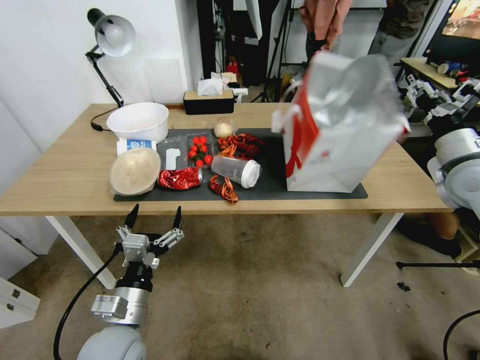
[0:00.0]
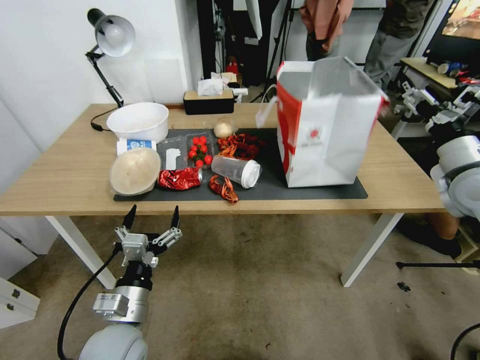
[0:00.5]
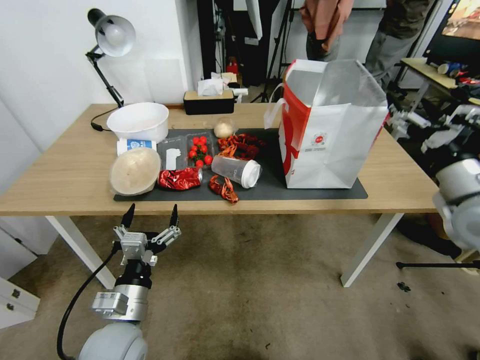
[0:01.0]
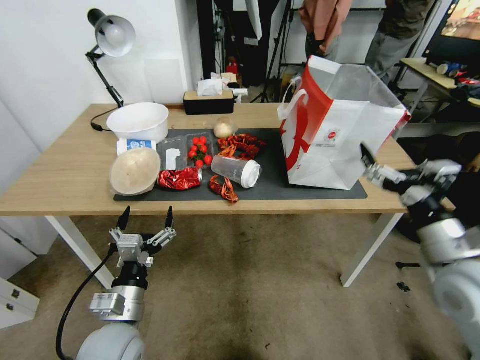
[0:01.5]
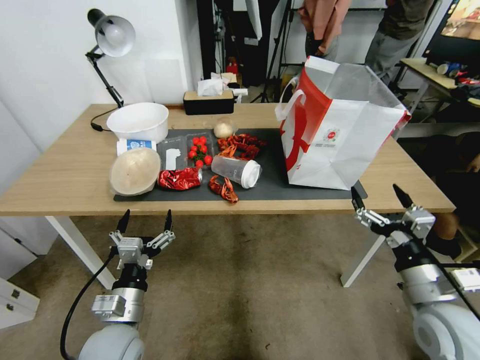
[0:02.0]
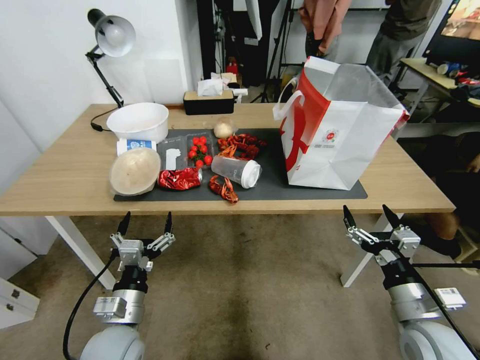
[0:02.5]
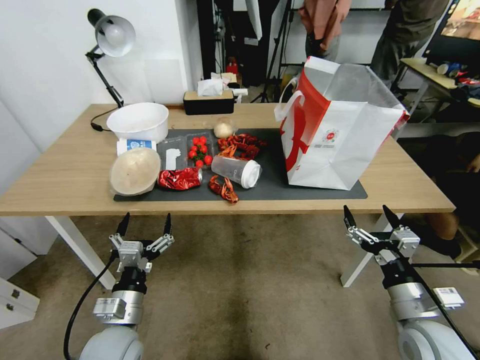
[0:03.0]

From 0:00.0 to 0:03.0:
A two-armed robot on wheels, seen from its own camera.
Task of the whole recording: Pick up the food delivery bag from the floor and place it on the table.
From 0:00.0 to 0:01.5: The right gripper shifts some 20 cm backward, to the left and downward, and opens its fingers.
From 0:01.5 to 0:03.0: The right gripper moves downward, about 15 cm.

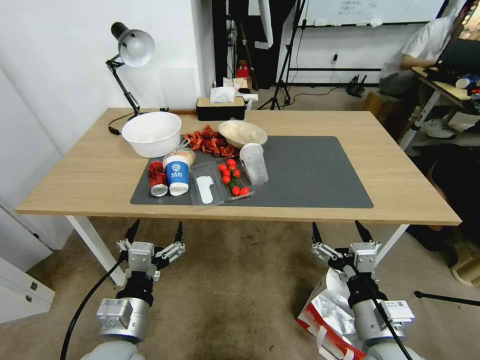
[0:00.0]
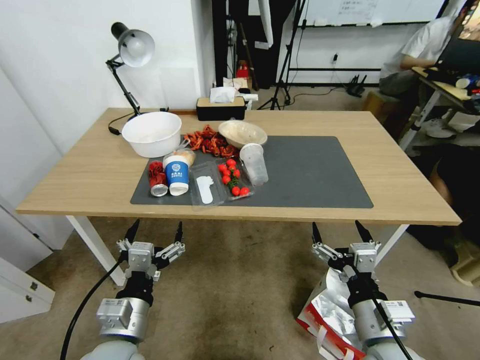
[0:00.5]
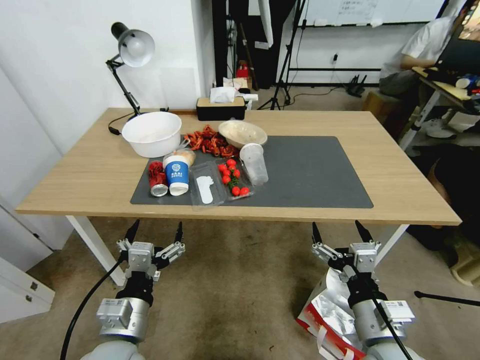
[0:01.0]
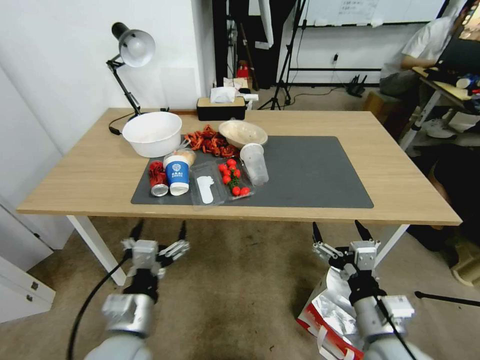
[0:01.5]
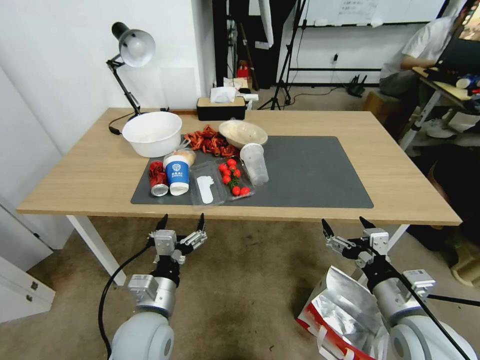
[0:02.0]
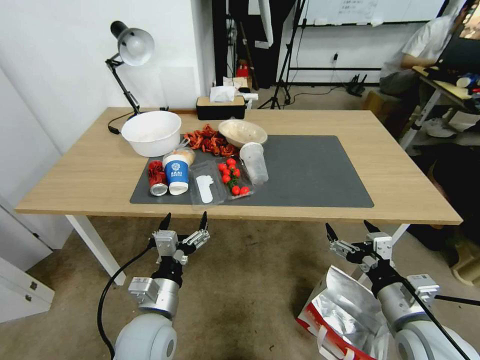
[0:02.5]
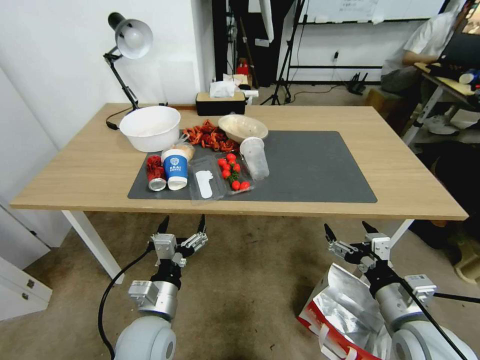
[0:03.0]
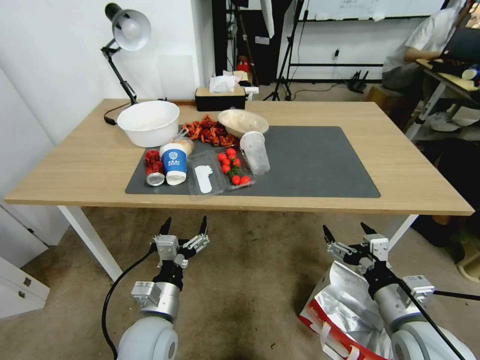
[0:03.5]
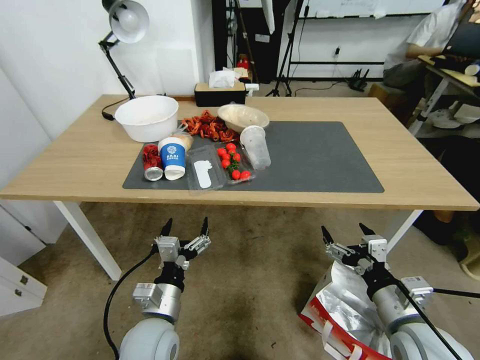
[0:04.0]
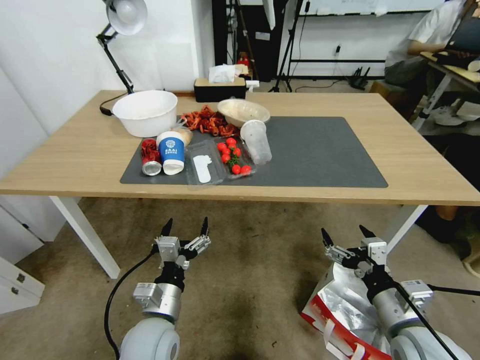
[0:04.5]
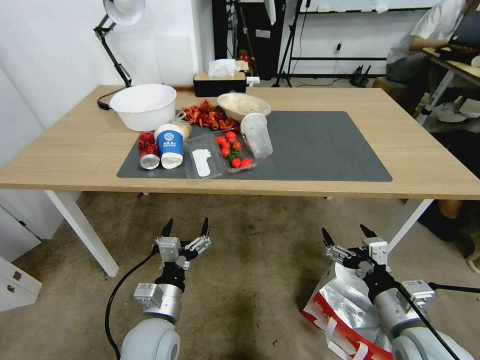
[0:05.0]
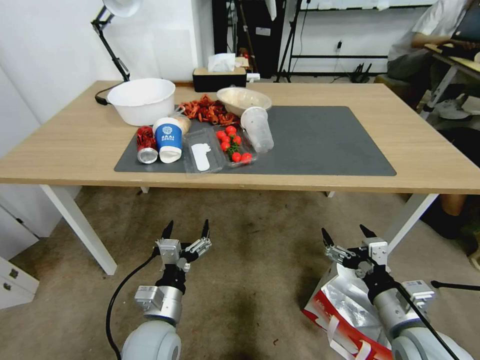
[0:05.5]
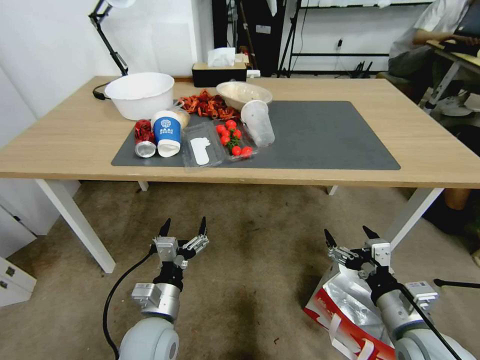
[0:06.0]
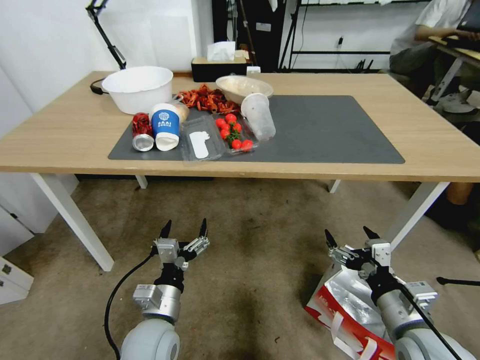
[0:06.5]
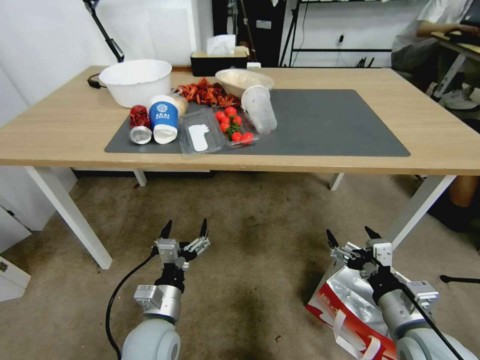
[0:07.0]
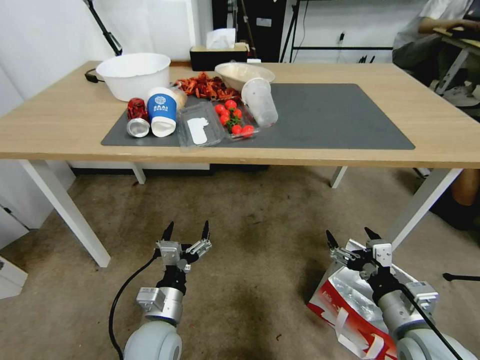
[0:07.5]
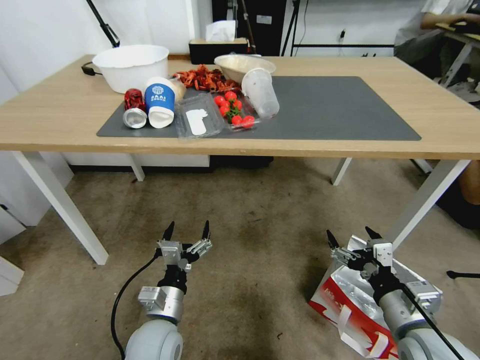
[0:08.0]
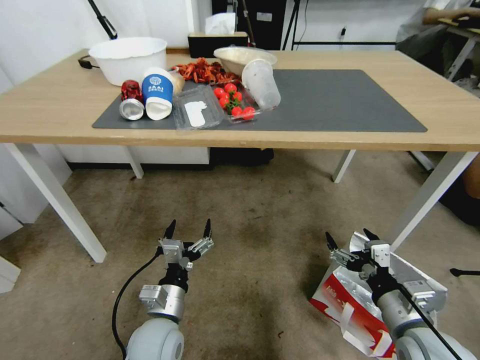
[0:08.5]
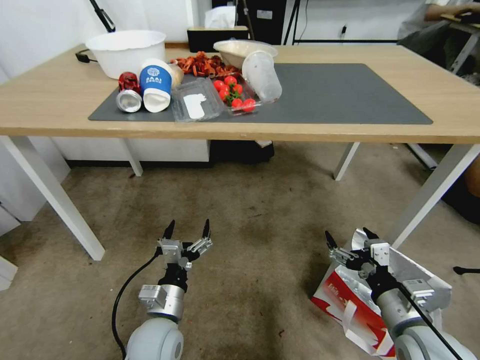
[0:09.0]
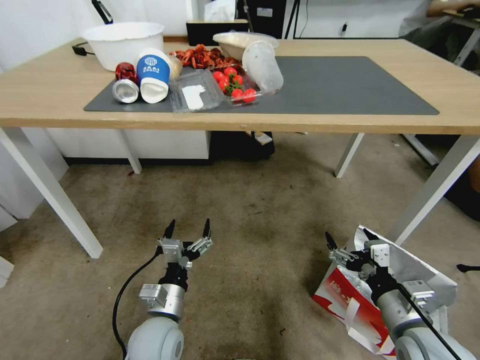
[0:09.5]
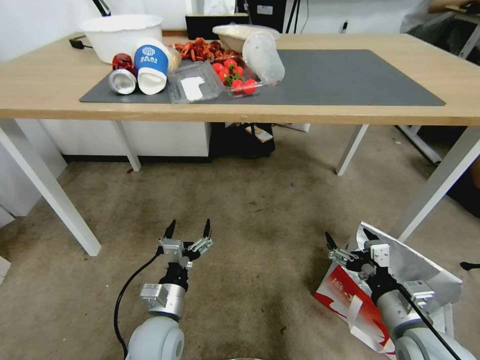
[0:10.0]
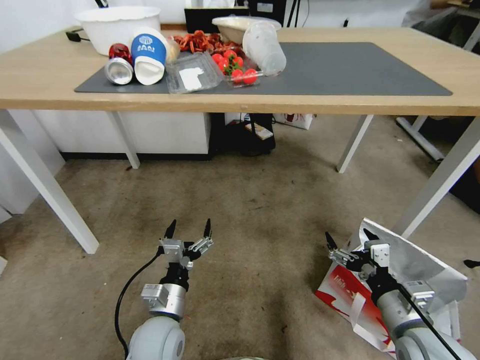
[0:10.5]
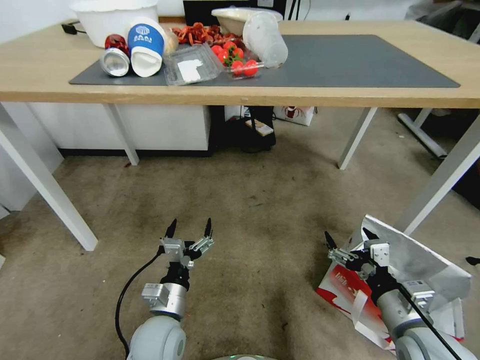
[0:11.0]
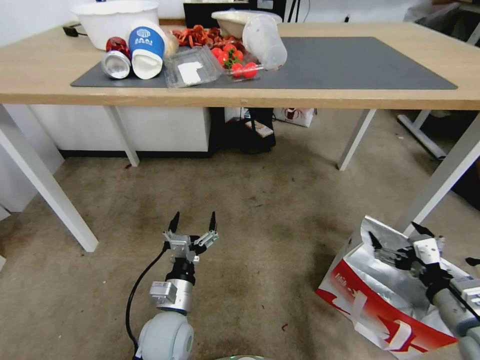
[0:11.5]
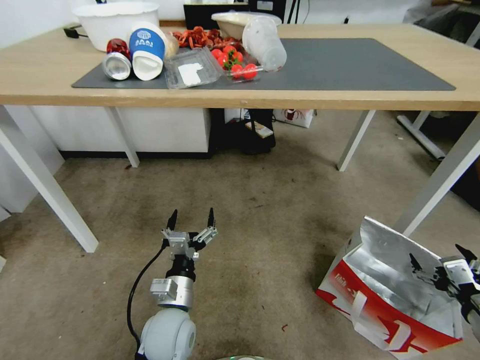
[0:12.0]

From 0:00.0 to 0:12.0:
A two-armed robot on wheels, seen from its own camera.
Task of the whole recording: Pick up the food delivery bag from the floor and place it on the table.
From 0:10.0 to 0:12.0: The right gripper is displaced to the right by some 15 cm.

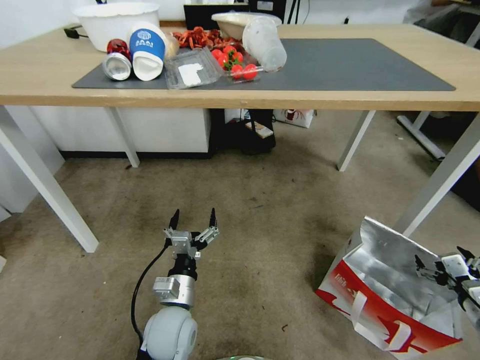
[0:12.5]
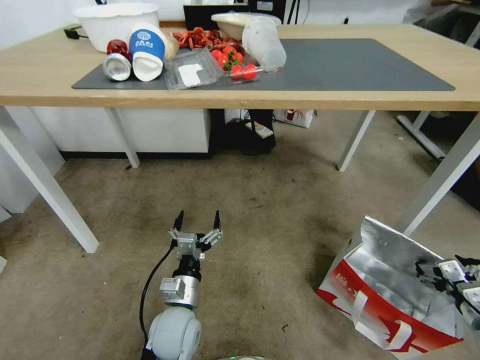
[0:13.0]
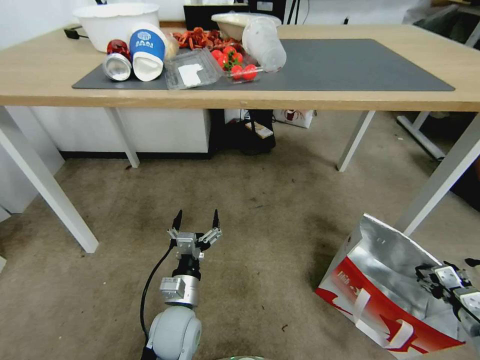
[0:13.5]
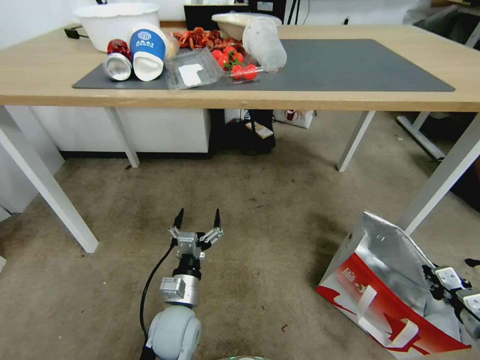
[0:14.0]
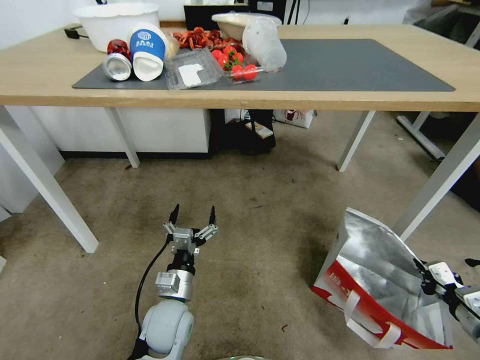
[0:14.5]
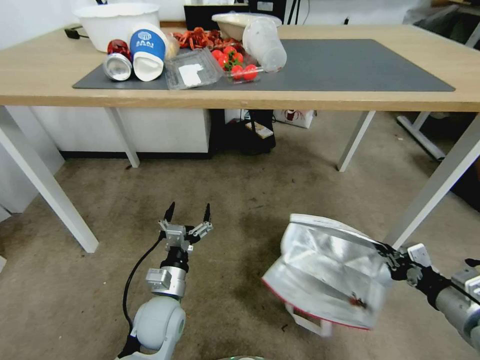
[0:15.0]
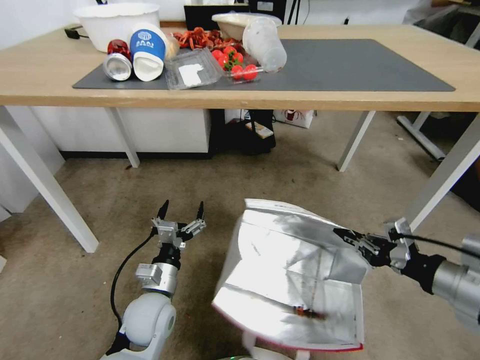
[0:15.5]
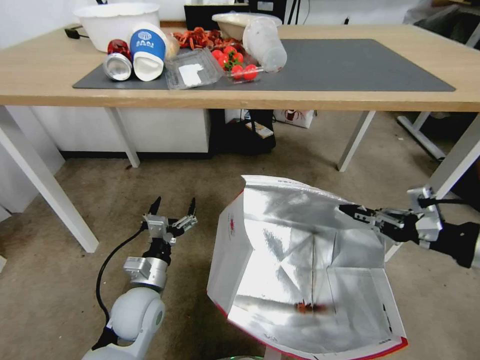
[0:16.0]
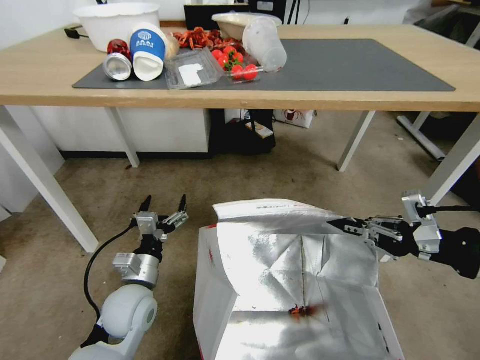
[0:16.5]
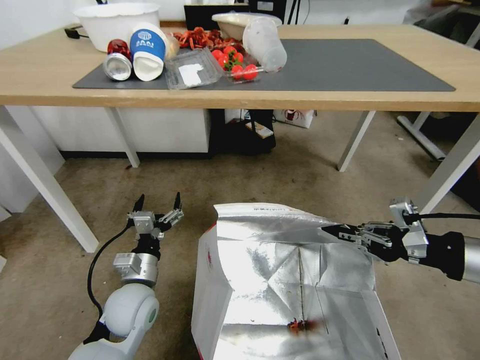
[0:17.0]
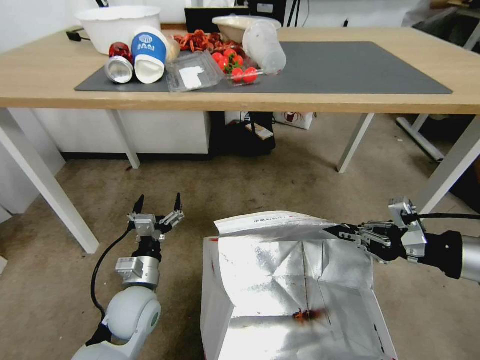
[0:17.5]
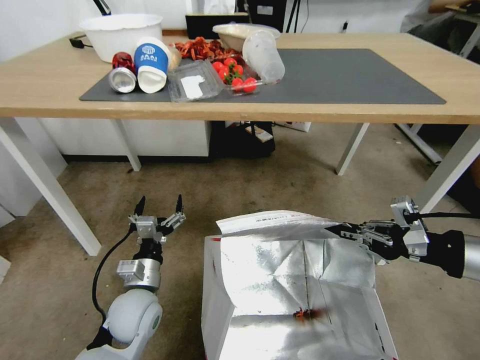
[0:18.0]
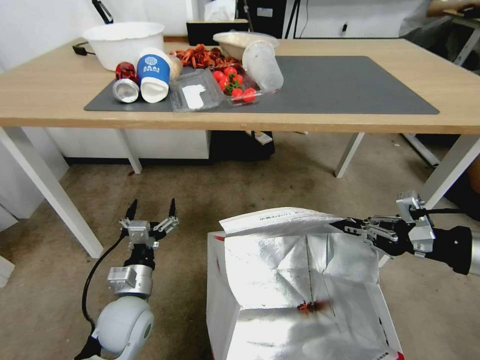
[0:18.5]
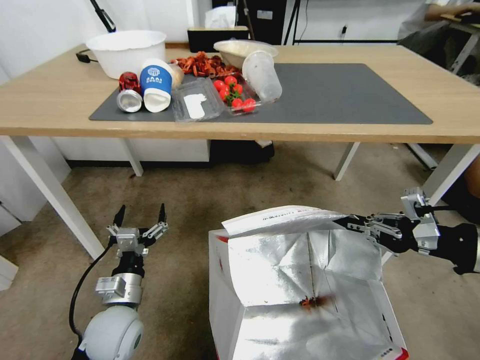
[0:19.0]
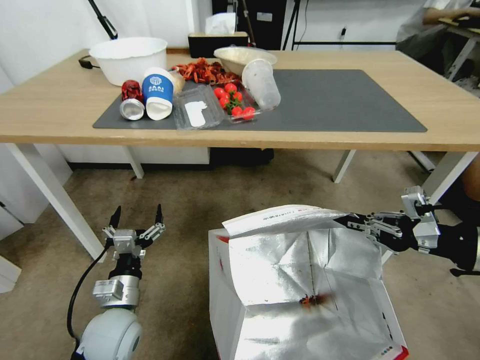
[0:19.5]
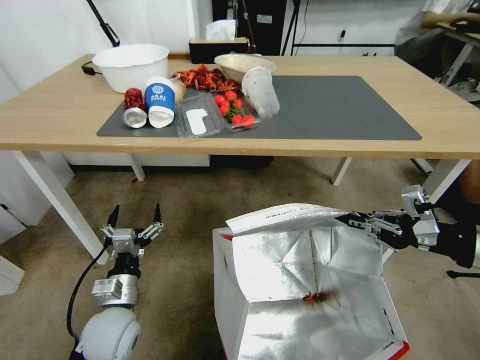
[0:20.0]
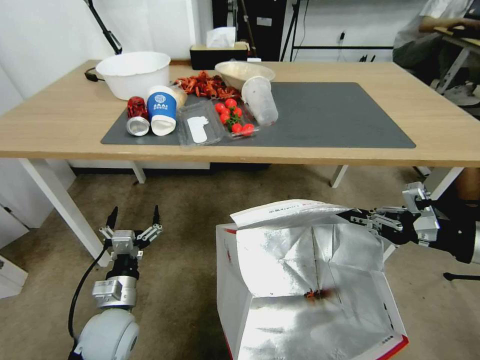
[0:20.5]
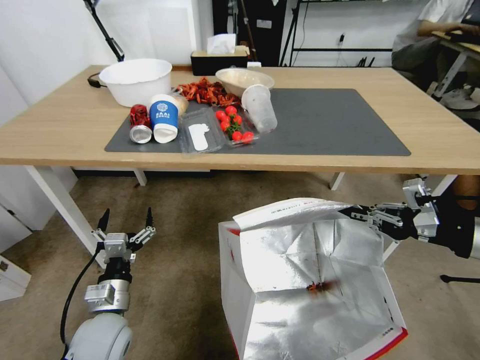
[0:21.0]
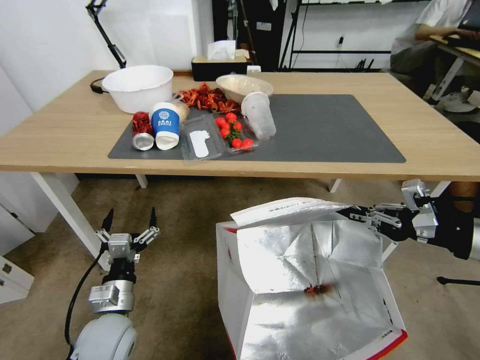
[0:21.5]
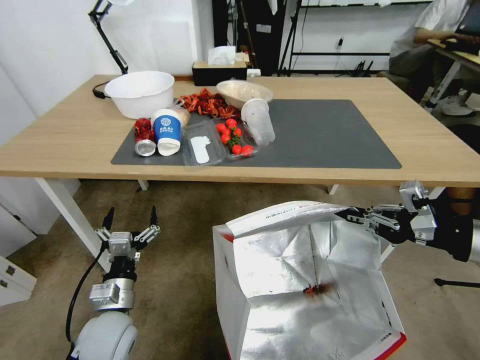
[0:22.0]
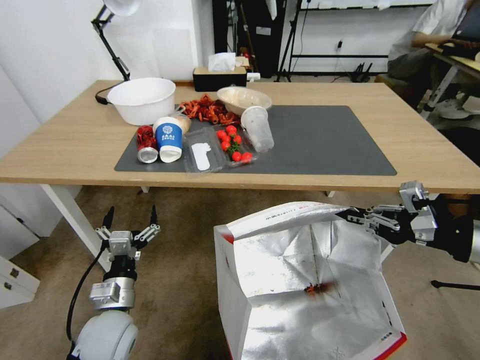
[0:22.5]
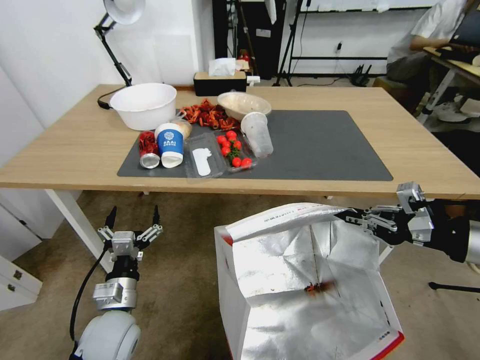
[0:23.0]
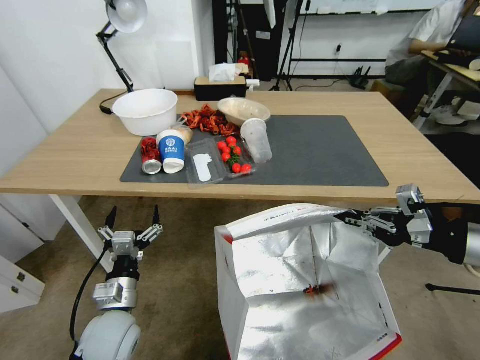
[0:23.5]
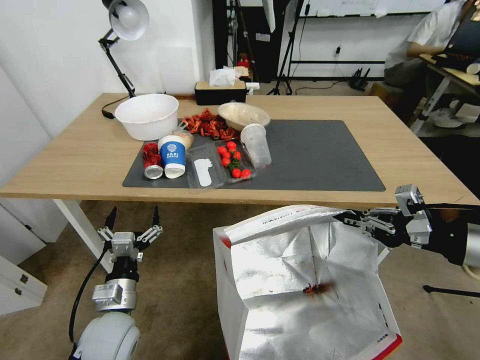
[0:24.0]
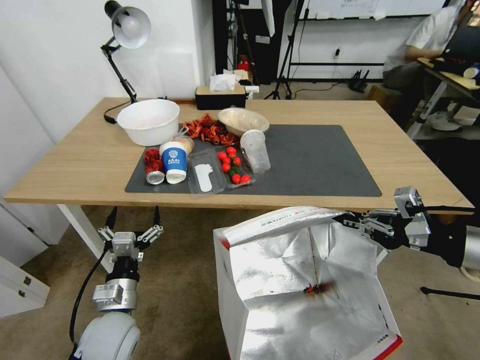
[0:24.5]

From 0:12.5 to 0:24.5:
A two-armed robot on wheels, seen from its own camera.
Task of the whole recording: Pick up the food delivery bag from the floor and place it on the table.
From 0:12.5 to 0:14.5: The right gripper closes up.
From 0:14.5 to 0:16.5: The right gripper moves upward, roughly 25 cm, while the left gripper shifts some 5 cm to the left.
